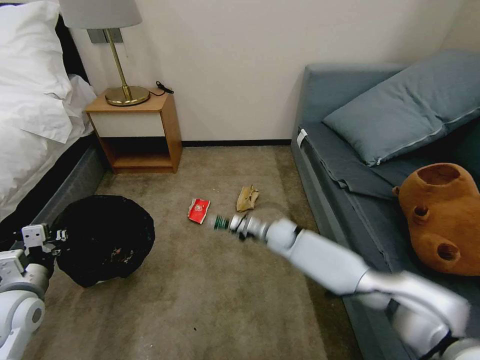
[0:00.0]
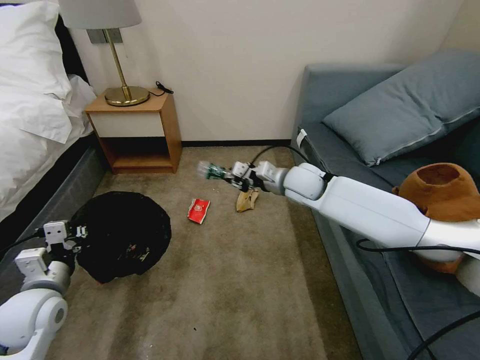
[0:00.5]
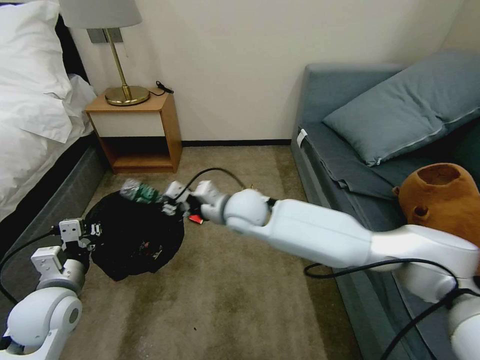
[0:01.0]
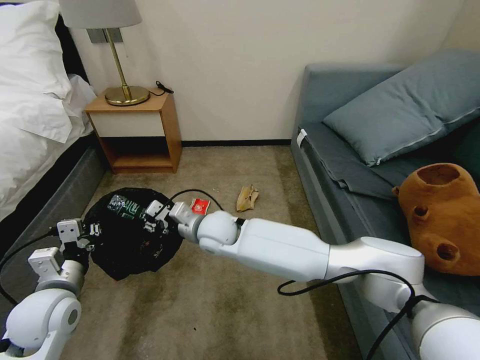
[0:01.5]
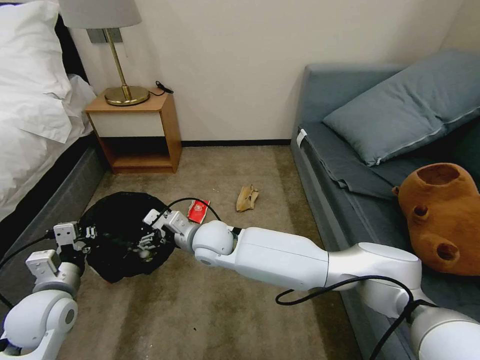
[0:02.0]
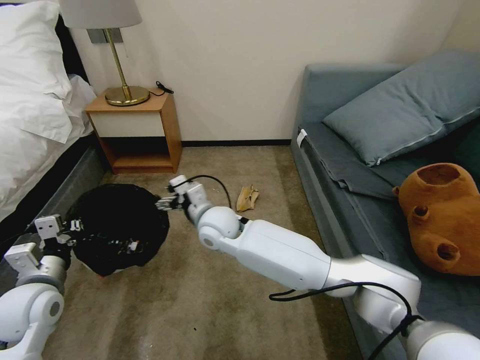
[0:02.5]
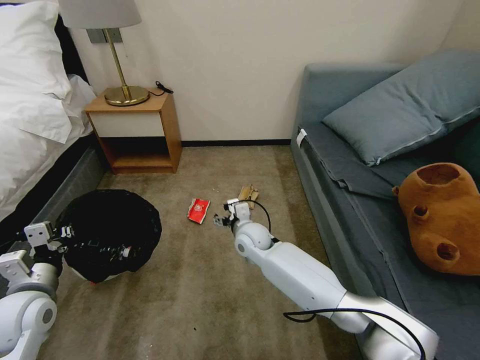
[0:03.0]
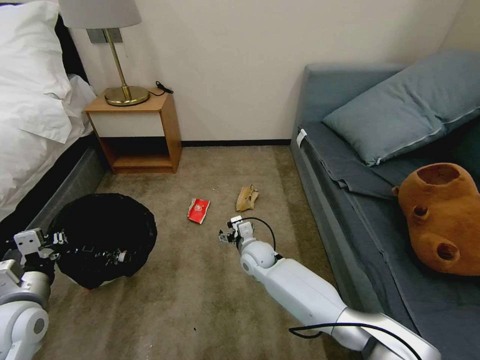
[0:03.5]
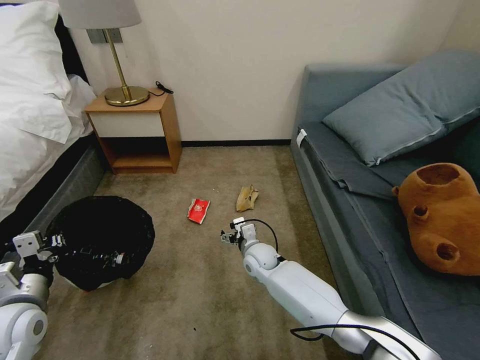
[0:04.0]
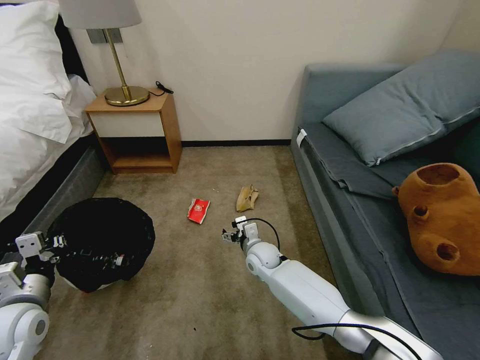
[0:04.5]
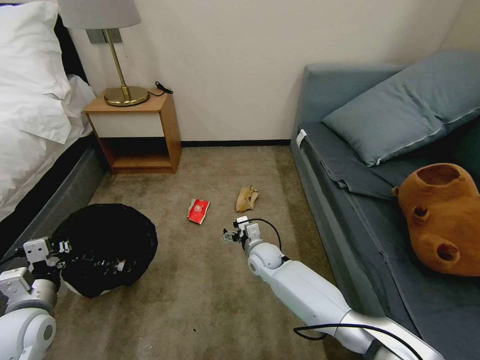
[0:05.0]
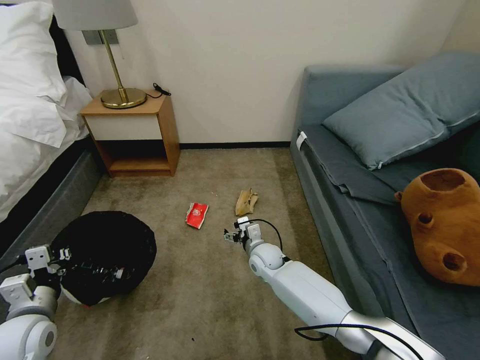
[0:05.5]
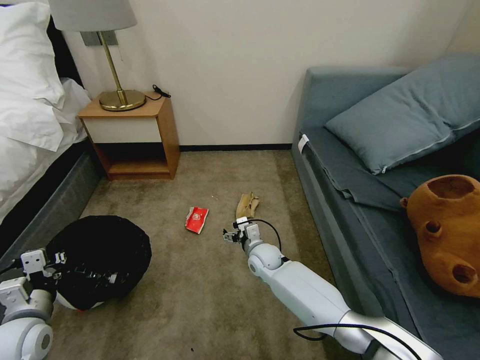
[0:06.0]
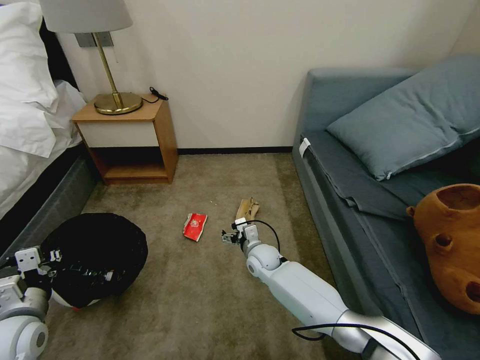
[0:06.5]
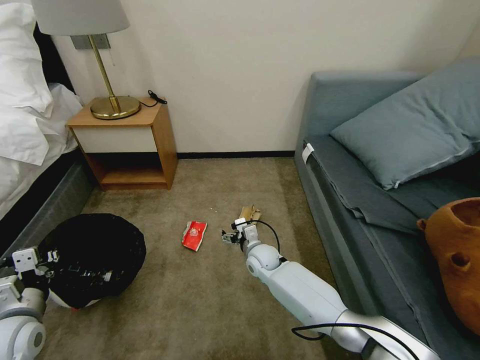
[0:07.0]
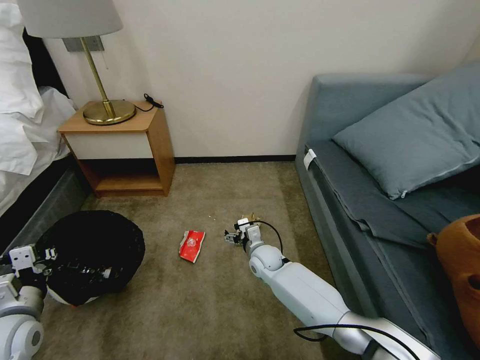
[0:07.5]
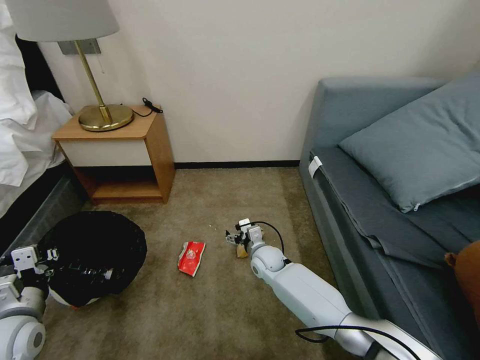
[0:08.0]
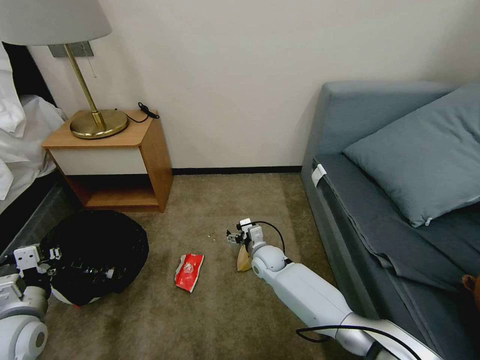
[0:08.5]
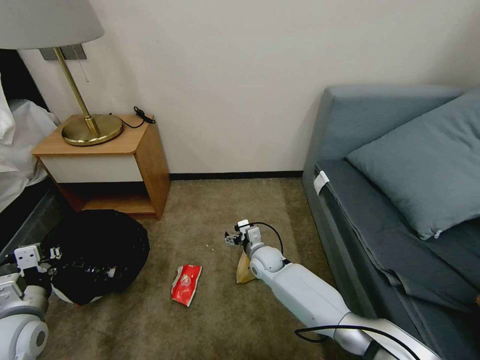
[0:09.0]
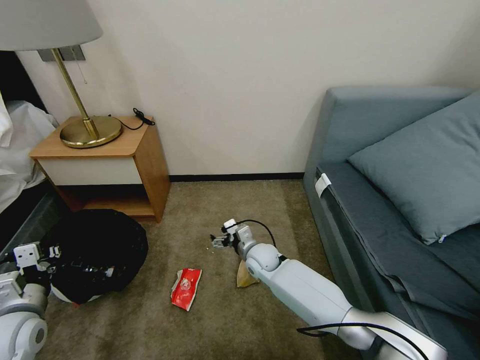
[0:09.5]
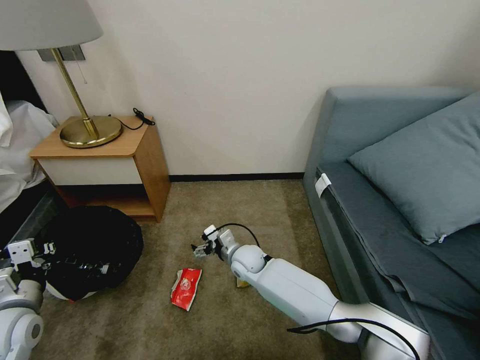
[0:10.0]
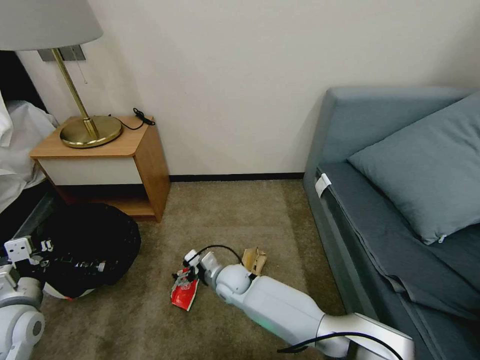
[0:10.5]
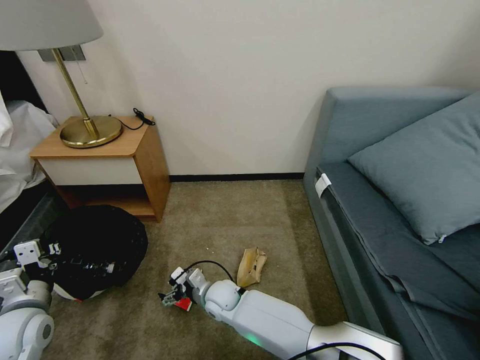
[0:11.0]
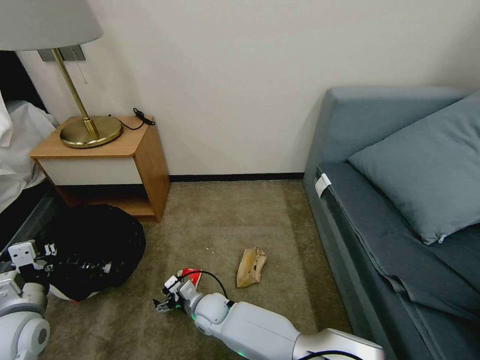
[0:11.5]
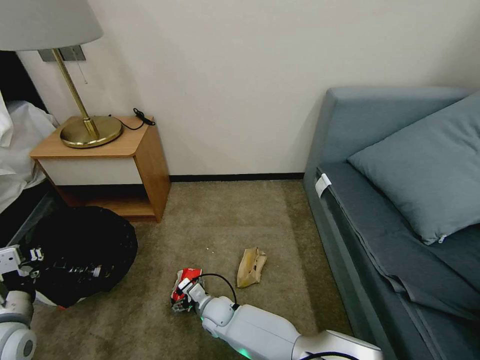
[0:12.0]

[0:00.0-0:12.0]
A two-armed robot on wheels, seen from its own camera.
Task of the whole recording: Pick up the trash bin, then pick up the garbage on the floor and place it into the trash bin.
0:00.0 to 0:02.0: The left gripper heads to the right, covering about 5 cm; the right gripper travels to the left, backward and upward by some 25 cm, and opens.
0:02.0 to 0:04.0: The left gripper moves about 5 cm. Meanwhile the right gripper is displaced downward and to the right by some 20 cm.
0:04.0 to 0:06.0: The grippers stay close to where they were, moving slightly.
0:08.0 to 0:10.0: The right gripper goes roughly 5 cm to the left.
0:10.0 to 0:12.0: The right gripper heads backward, downward and to the left, covering roughly 15 cm.

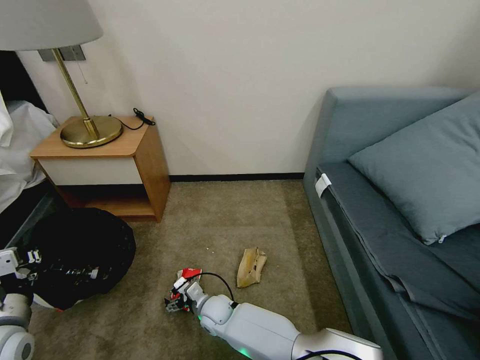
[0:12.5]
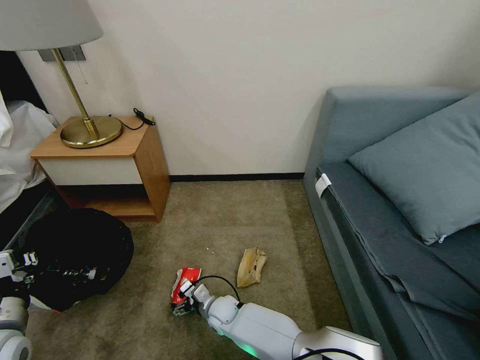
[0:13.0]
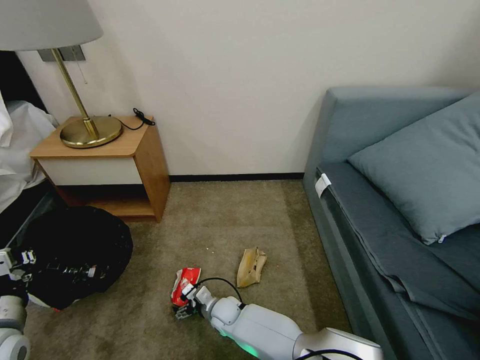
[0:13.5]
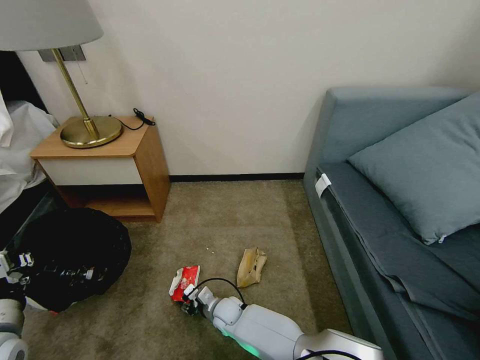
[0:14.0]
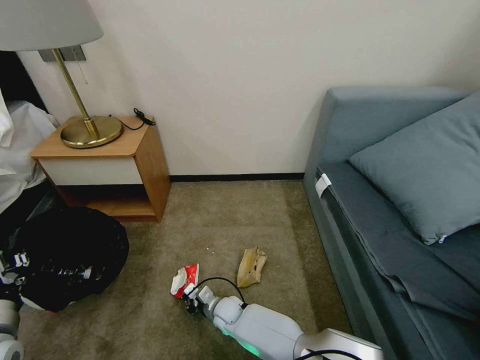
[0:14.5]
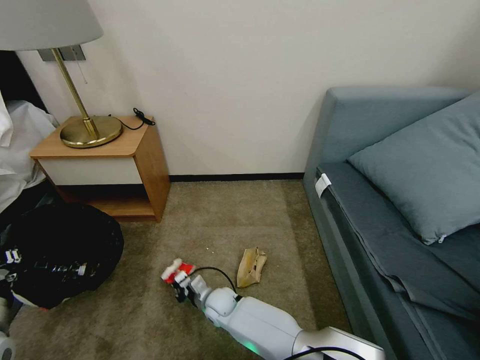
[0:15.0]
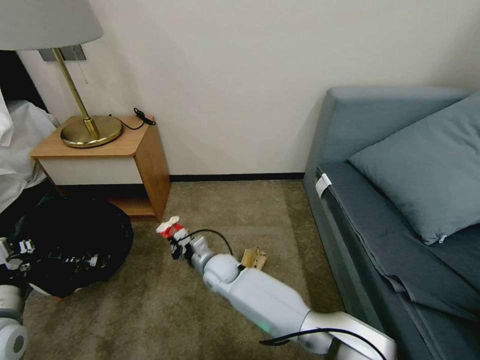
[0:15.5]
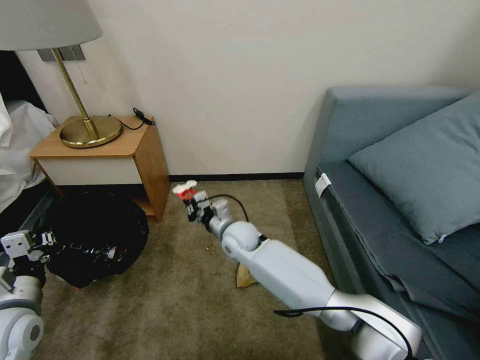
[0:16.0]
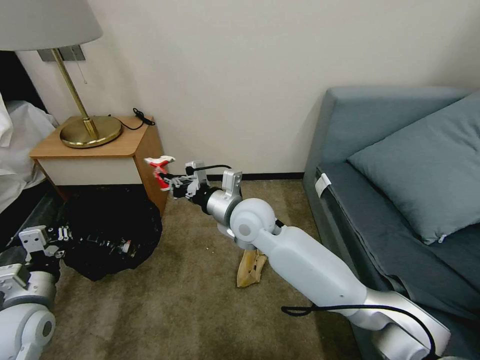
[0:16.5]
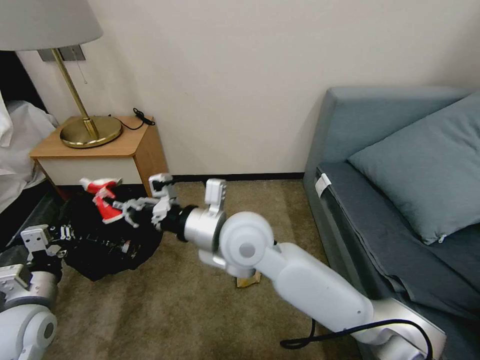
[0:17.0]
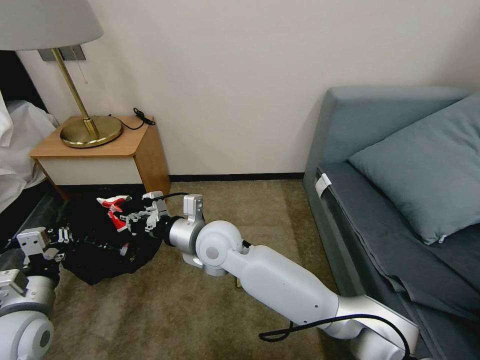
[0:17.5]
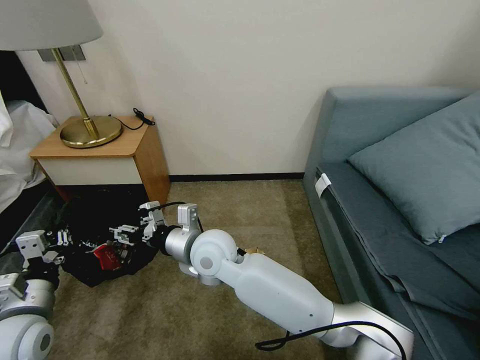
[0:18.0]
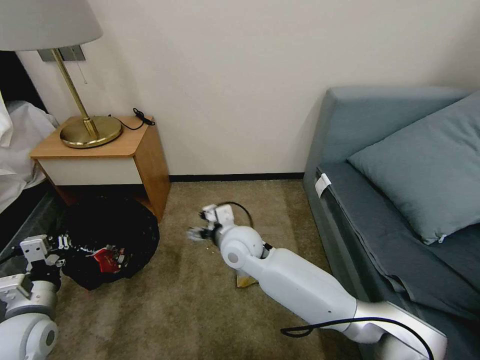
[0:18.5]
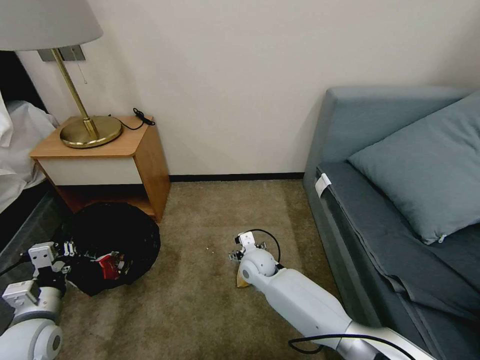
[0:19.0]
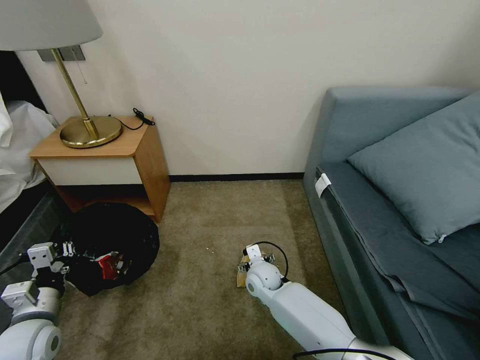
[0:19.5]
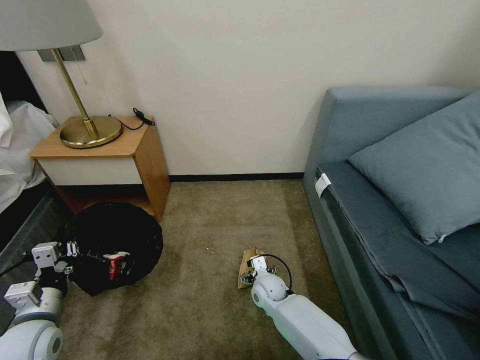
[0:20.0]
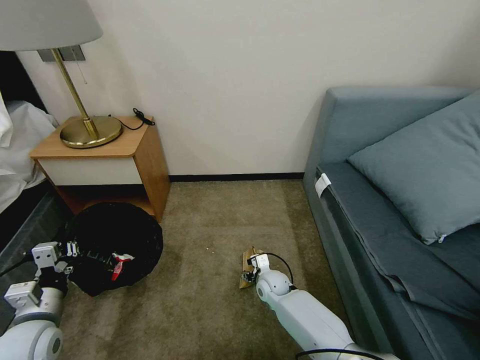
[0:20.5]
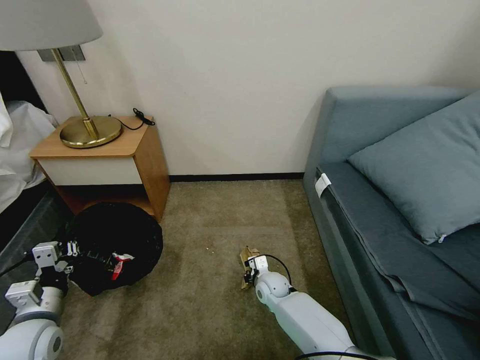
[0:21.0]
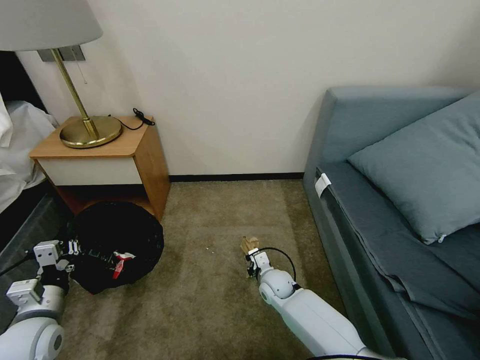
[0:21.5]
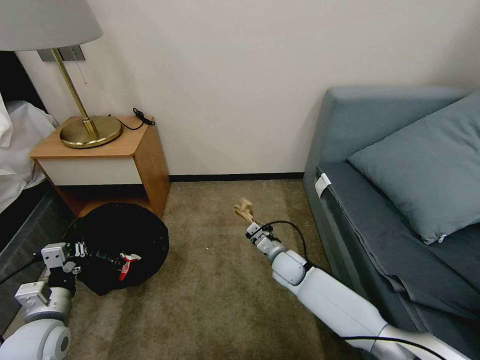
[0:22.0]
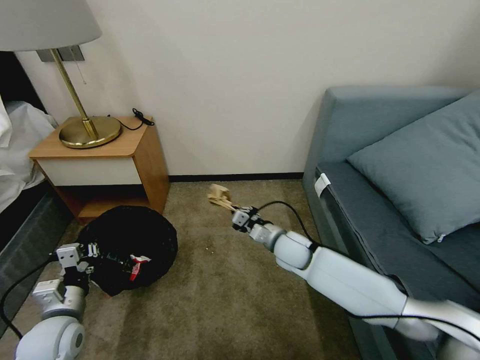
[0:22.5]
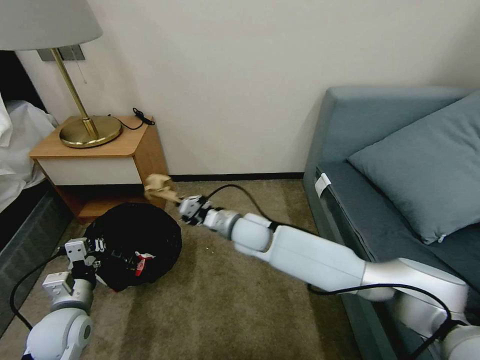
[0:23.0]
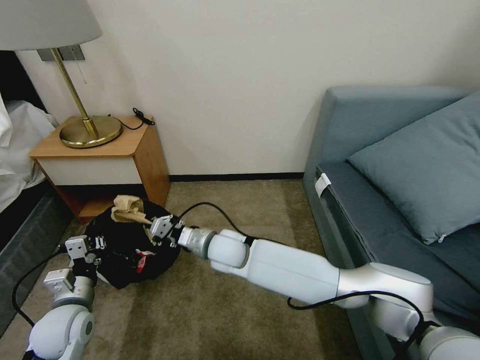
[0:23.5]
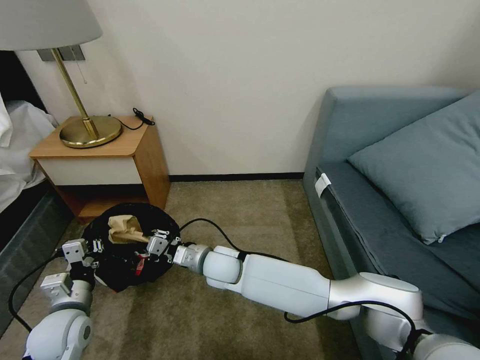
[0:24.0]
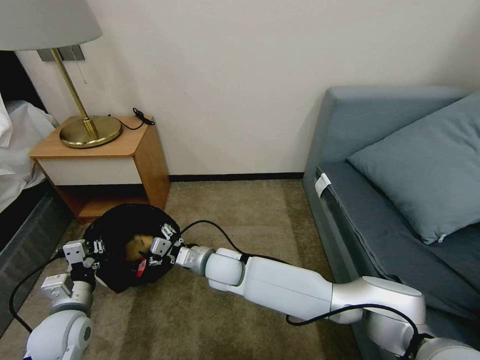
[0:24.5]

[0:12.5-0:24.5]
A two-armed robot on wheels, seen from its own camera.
Task of the whole recording: Pick up the trash bin, then pick up the garbage on the floor and place it into the trash bin.
0:12.5 to 0:14.5: The right gripper closes.
0:14.5 to 0:16.5: The left gripper goes some 5 cm forward. Meanwhile the right gripper heads upward, covering approximately 35 cm.
0:16.5 to 0:18.5: The right gripper is displaced downward by some 5 cm, and opens up.
0:18.5 to 0:20.5: The right gripper shifts about 30 cm downward and to the right.
0:20.5 to 0:22.5: The right gripper heads upward, covering approximately 15 cm, and closes its fingers.
0:22.5 to 0:24.5: The right gripper is displaced to the left by about 20 cm, and opens.

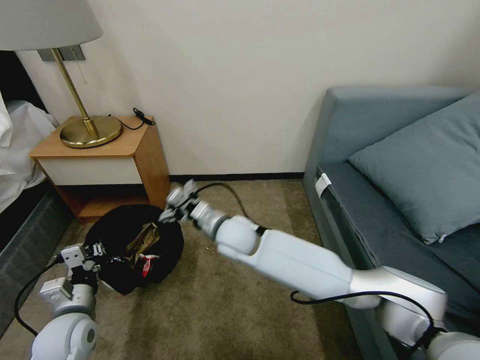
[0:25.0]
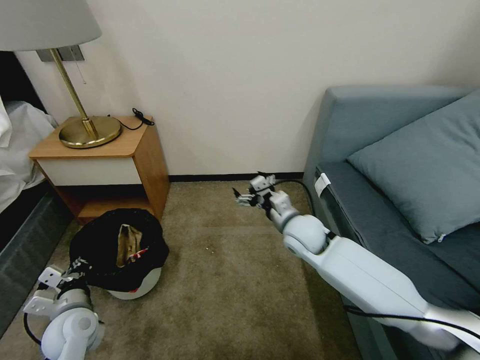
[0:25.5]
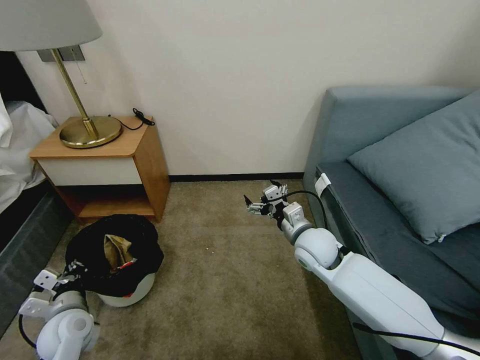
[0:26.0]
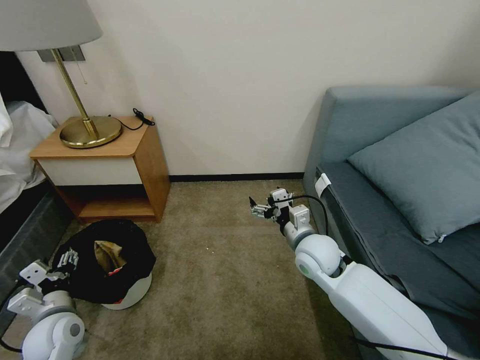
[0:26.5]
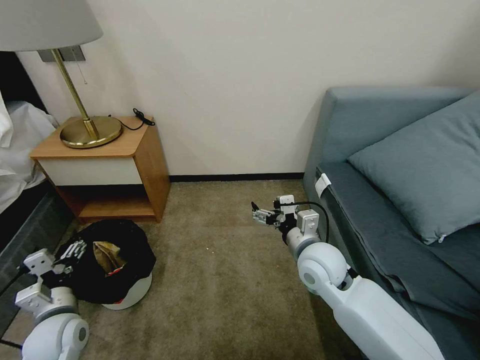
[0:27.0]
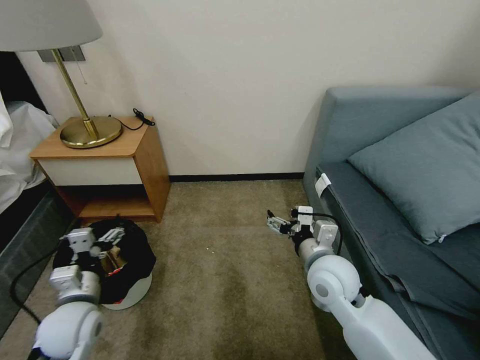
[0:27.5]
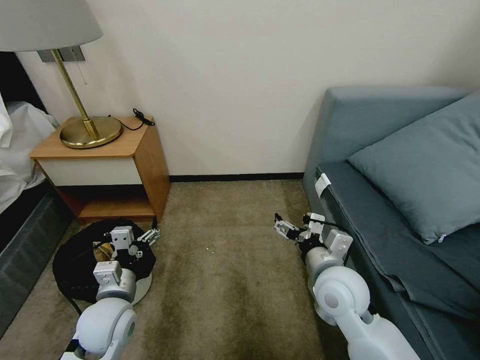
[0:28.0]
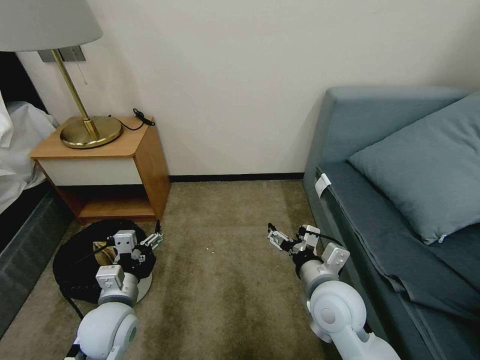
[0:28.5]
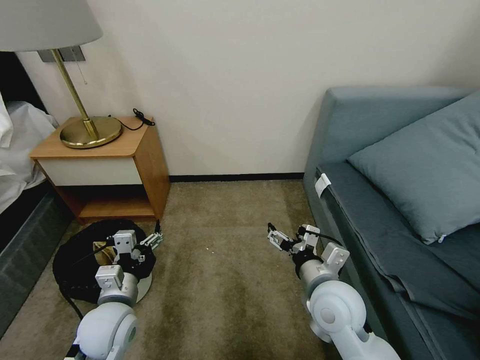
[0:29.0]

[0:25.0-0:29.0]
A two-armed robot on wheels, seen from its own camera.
Task of the whole recording: Pick up the trash bin, then pick up the garbage on the floor and place it into the trash bin.
0:25.0 to 0:27.0: The right gripper heads to the right and backward, covering some 20 cm, while the left gripper opens its fingers.
0:27.0 to 0:29.0: The left gripper goes approximately 10 cm to the right. Meanwhile the right gripper travels backward by approximately 10 cm.
